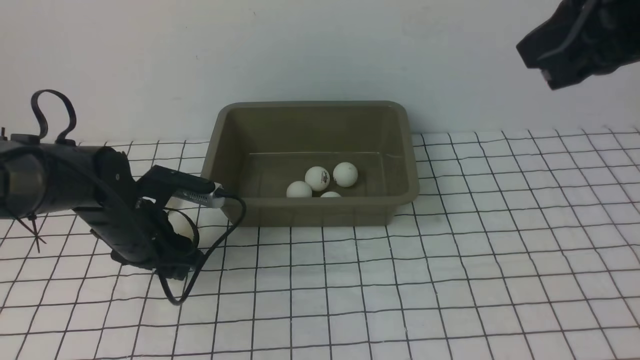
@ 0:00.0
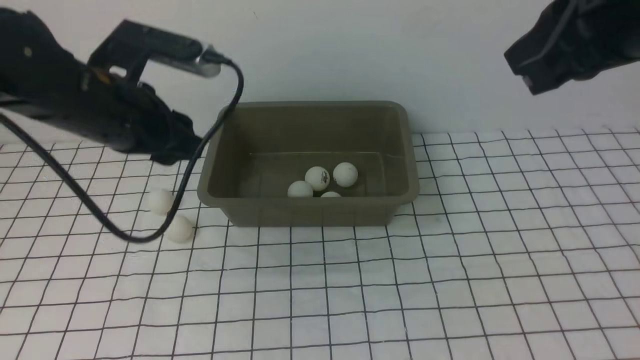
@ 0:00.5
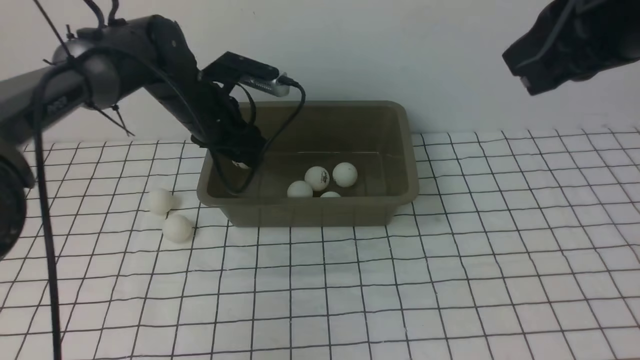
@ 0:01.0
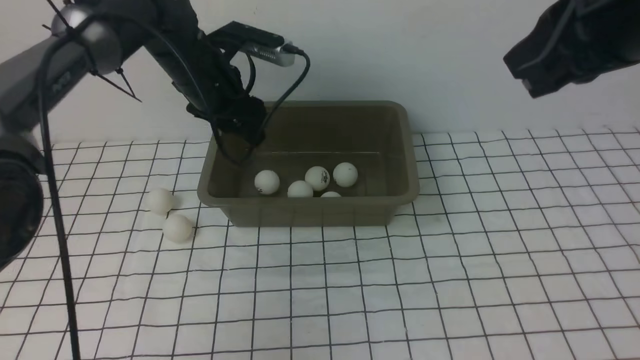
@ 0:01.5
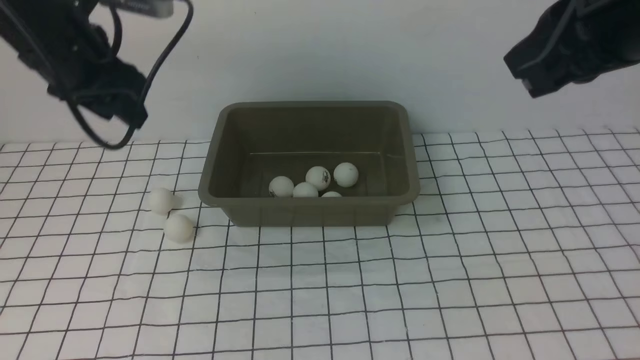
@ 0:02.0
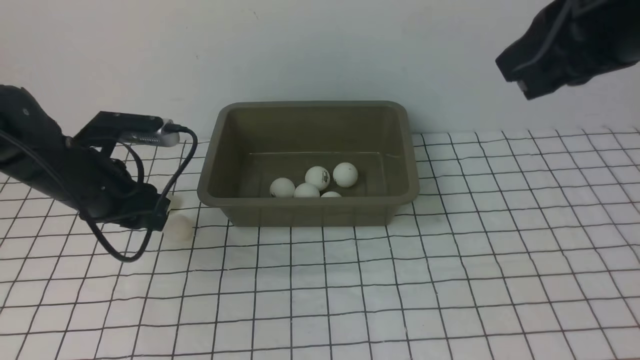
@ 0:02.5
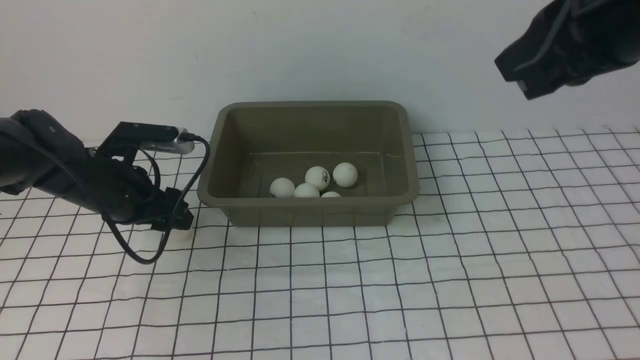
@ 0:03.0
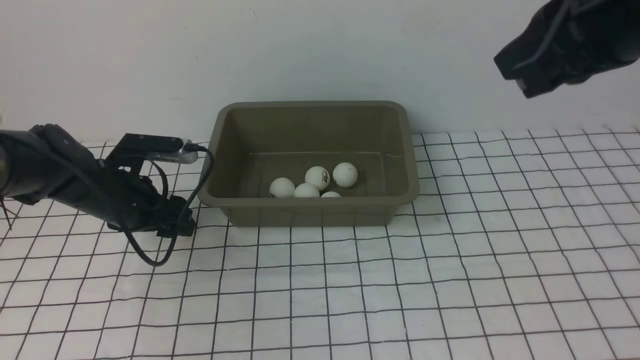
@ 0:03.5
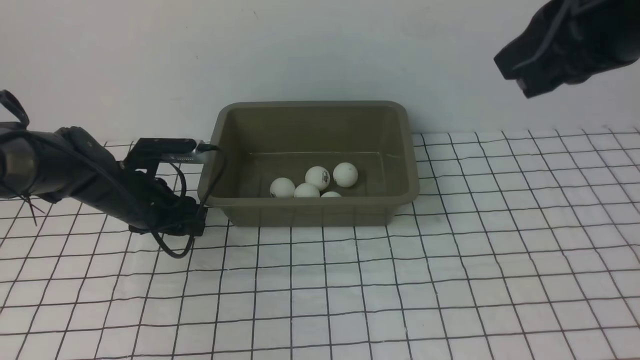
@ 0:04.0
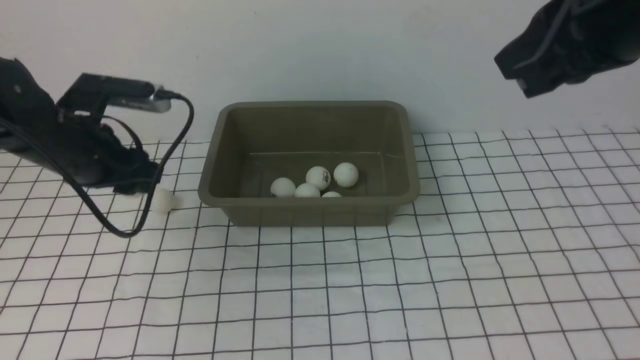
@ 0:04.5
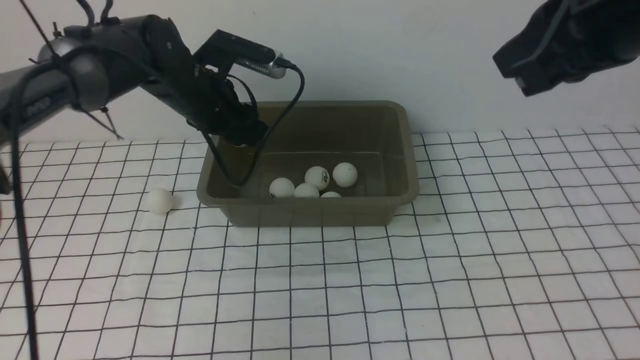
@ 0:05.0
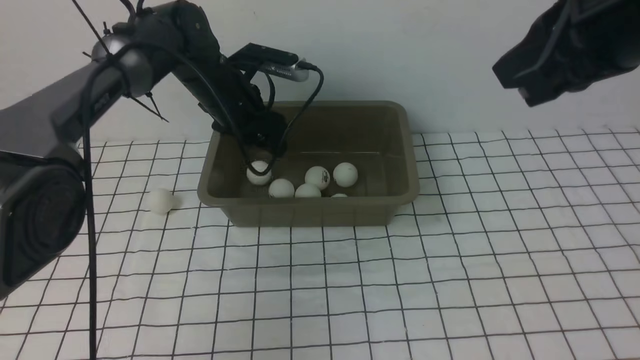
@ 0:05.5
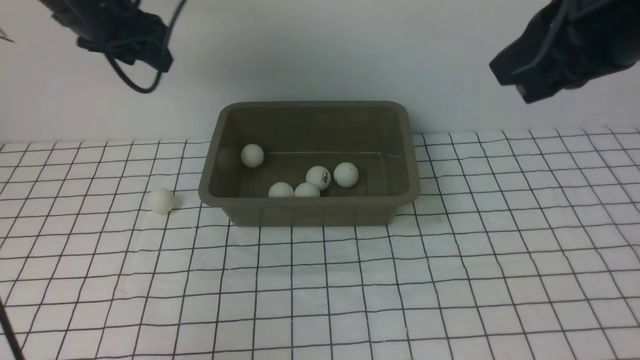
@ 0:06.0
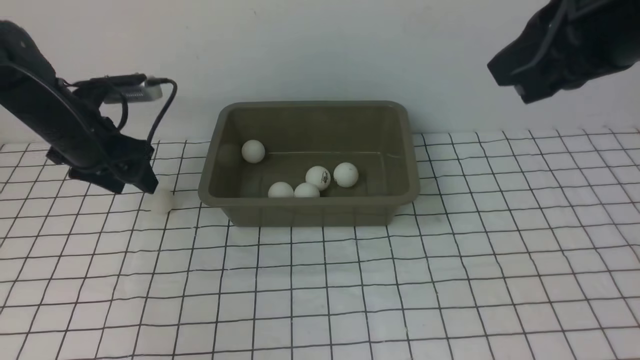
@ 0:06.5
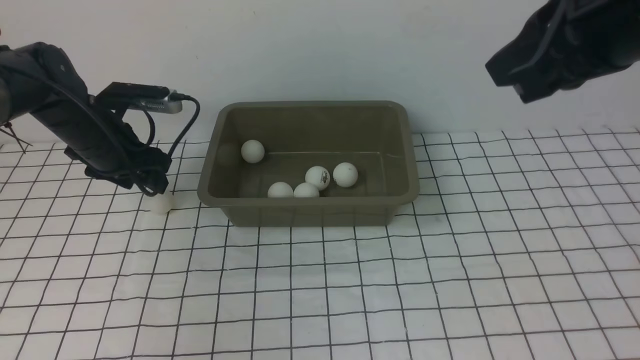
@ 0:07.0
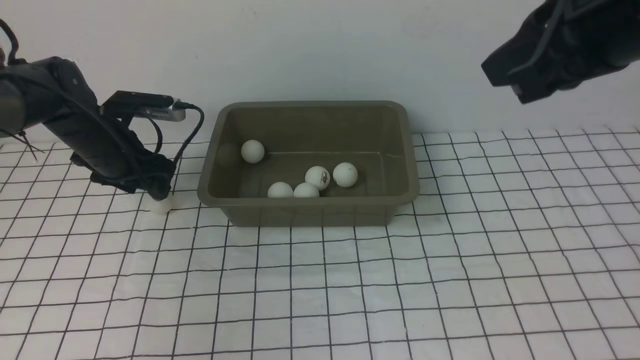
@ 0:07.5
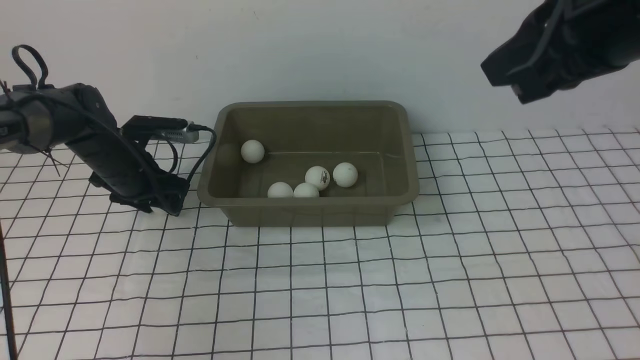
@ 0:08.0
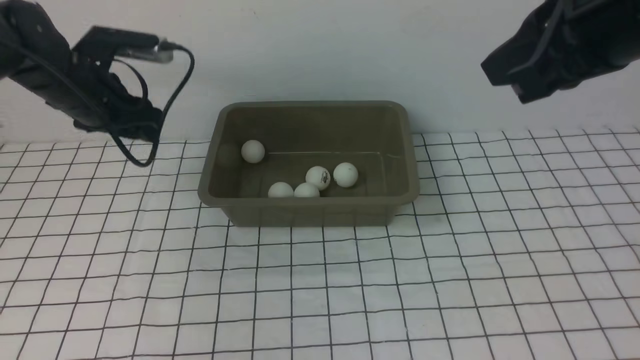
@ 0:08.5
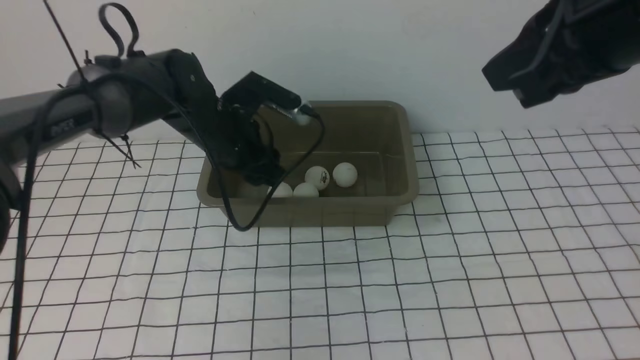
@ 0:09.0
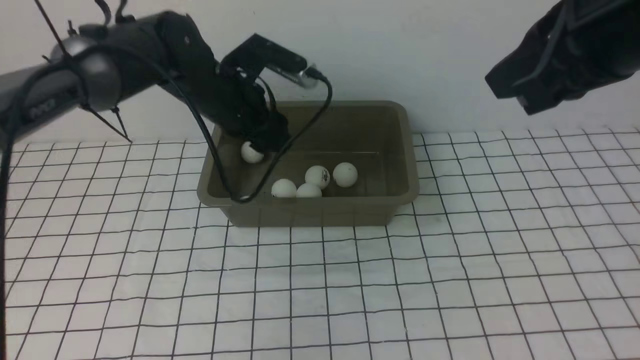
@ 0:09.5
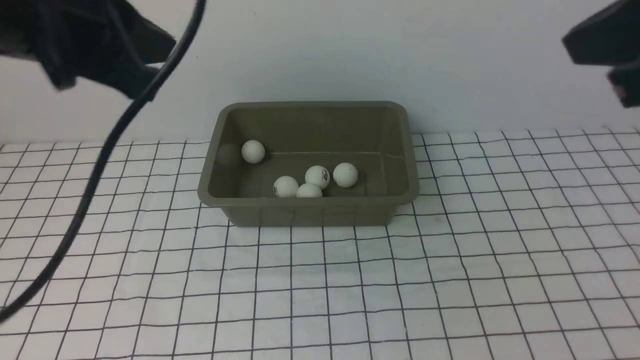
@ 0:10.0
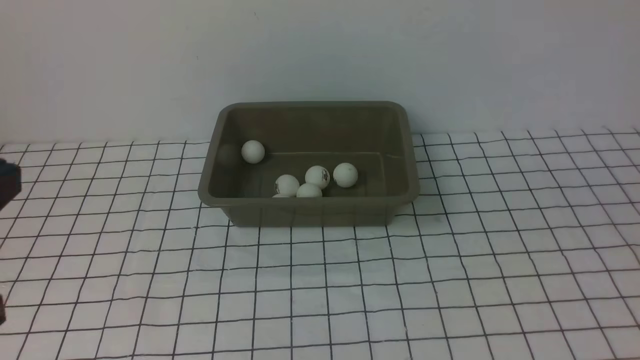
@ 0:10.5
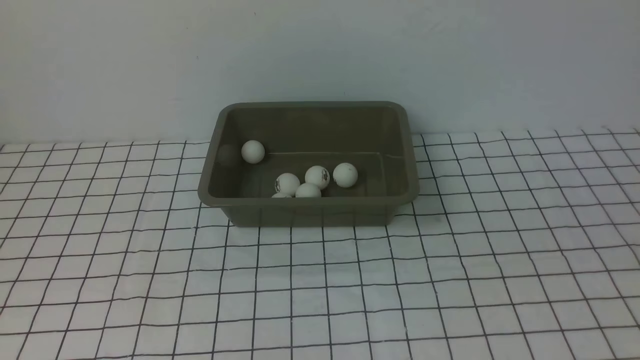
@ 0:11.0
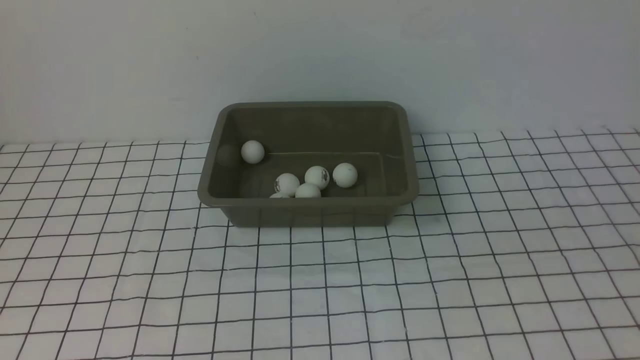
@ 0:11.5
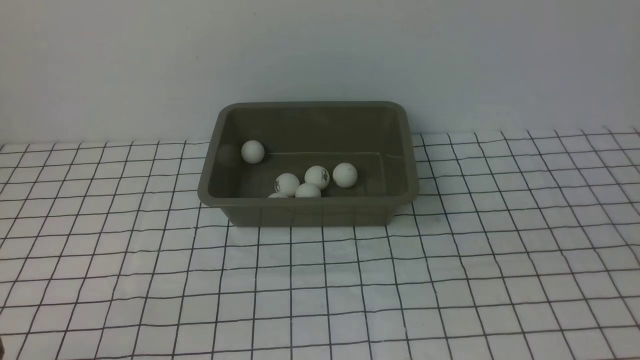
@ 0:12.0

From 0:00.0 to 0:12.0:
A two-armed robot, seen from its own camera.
Step, from 0:00.5 to 0:01.0: use the left arm to put the table tennis ball into the box.
Step, from 0:01.5 to 0:04.0: use the left arm to clamp the table tennis ball closest to it.
Step, from 0:04.5 to 0:05.5: use the left arm to put the table tennis ball into the box.
Step, from 0:06.0 to 0:08.0: use the left arm to clamp the table tennis ball closest to it.
From 0:00.0 to 0:02.0: The left gripper travels forward and back again, roughly 15 cm each way.
From 0:02.0 to 0:04.0: The left gripper travels downward by some 10 cm.
From 0:04.0 to 0:06.0: The left gripper shifts some 20 cm upward.
From 0:06.0 to 0:08.0: The left gripper shifts some 15 cm downward.
From 0:08.0 to 0:10.0: The right gripper heads backward and to the right, covering approximately 15 cm. Meanwhile the left gripper heads backward and upward, covering about 40 cm, and closes up.
From 0:10.0 to 0:12.0: The right gripper heads downward, covering some 5 cm. Meanwhile the left gripper shifts roughly 20 cm downward.

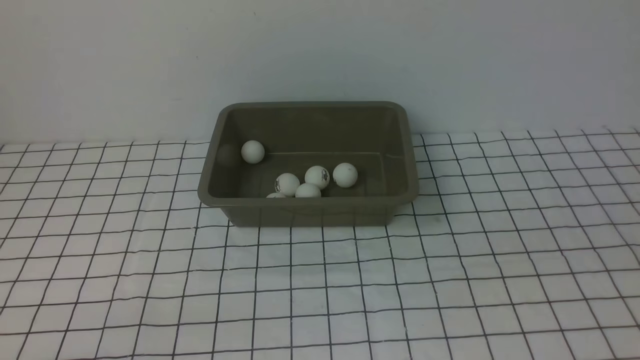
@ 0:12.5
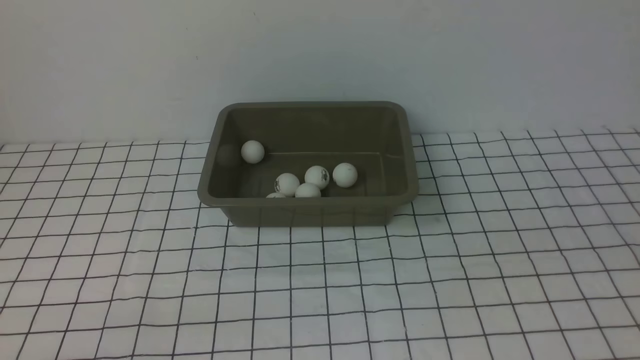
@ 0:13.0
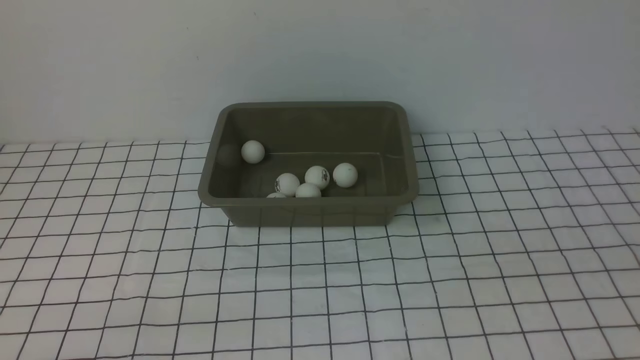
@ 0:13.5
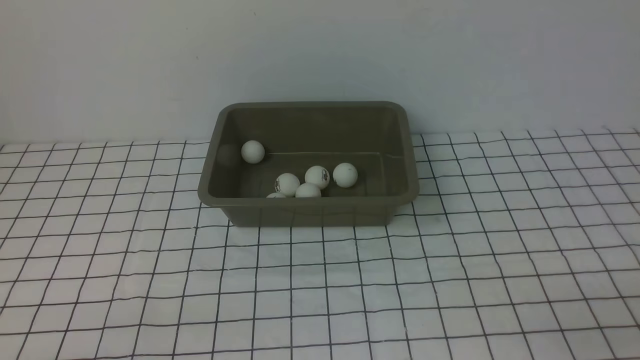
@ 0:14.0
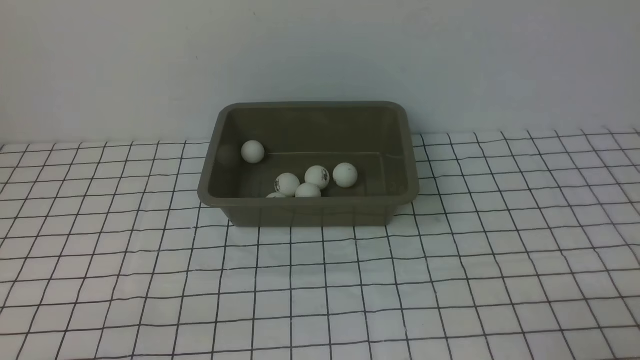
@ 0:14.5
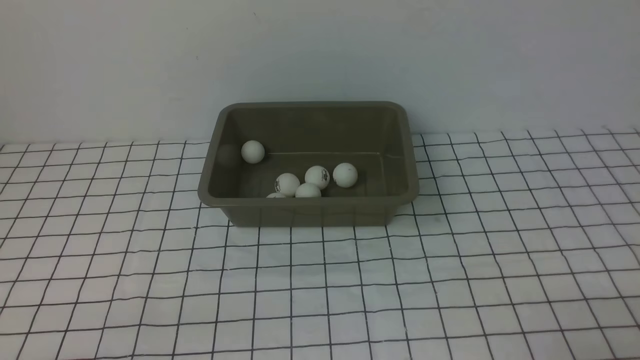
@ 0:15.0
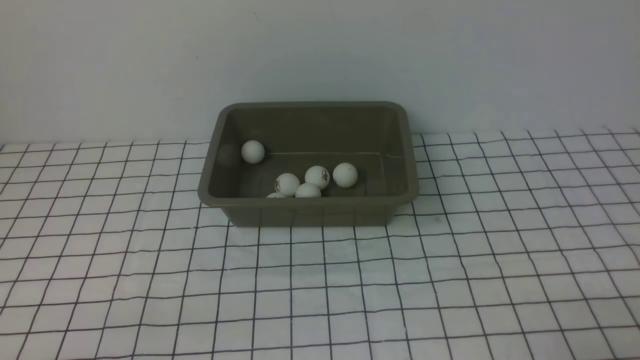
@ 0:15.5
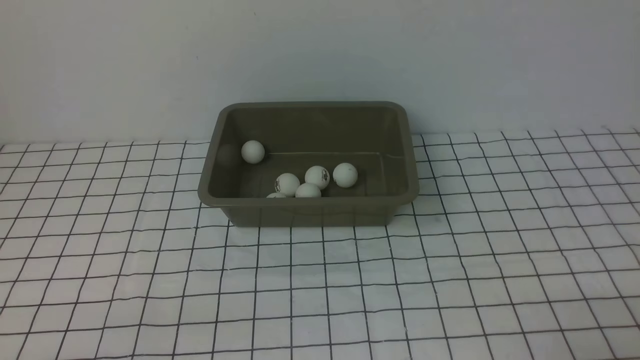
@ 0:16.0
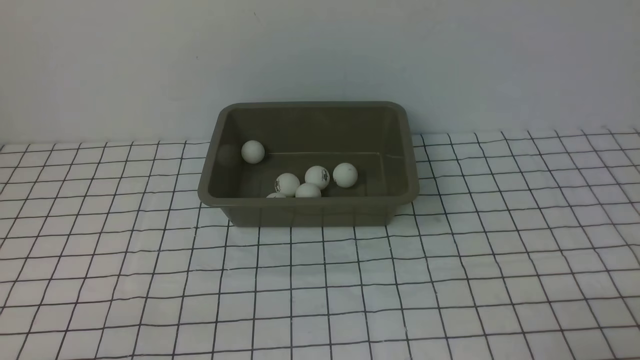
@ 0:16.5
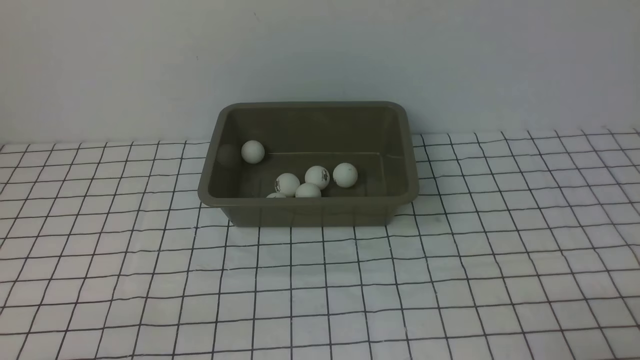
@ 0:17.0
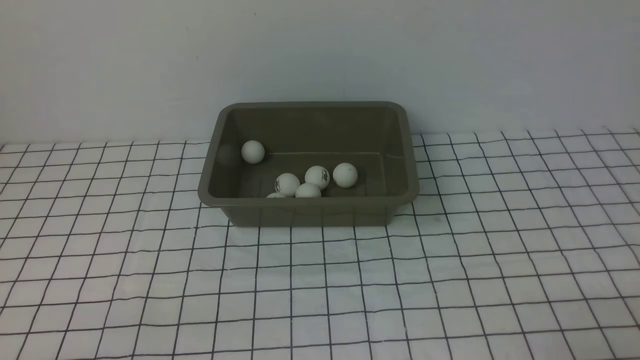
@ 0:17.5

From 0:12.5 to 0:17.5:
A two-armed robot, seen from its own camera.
From 0:15.0 to 0:17.5: Neither gripper changes place.
